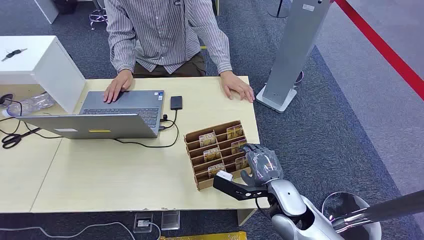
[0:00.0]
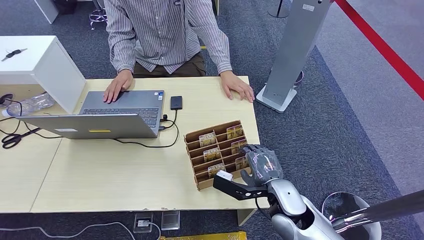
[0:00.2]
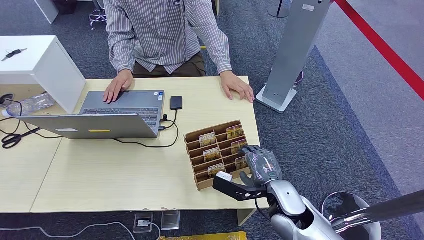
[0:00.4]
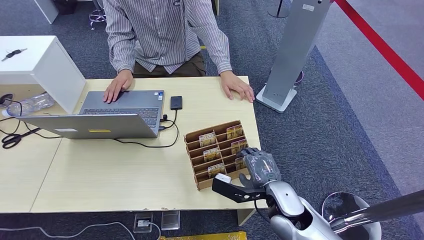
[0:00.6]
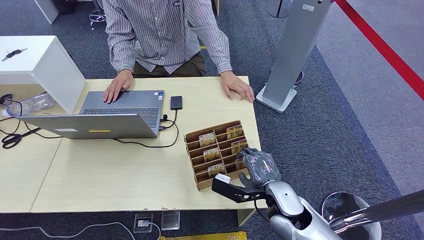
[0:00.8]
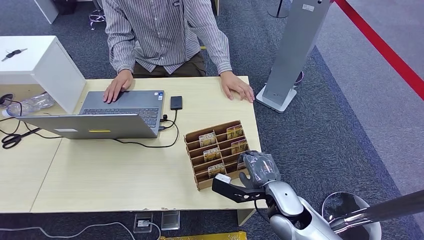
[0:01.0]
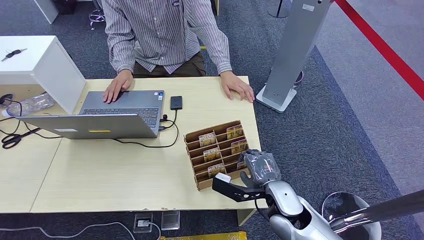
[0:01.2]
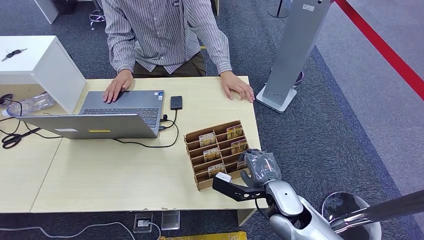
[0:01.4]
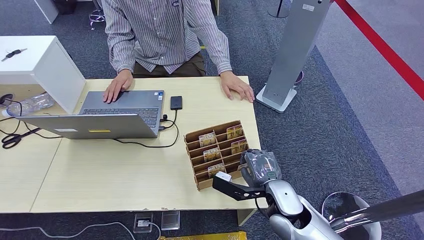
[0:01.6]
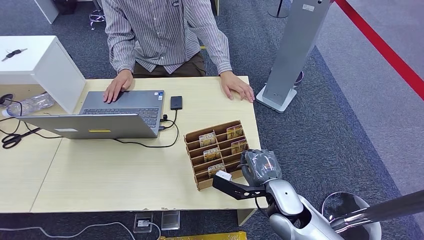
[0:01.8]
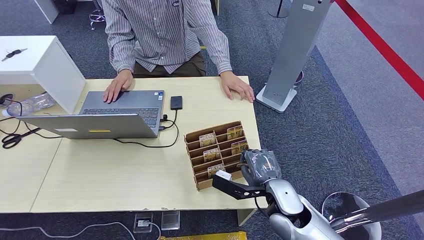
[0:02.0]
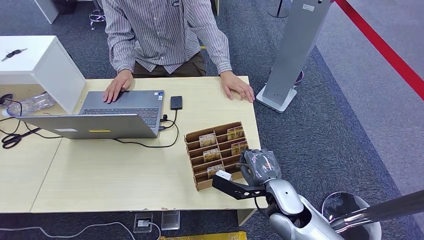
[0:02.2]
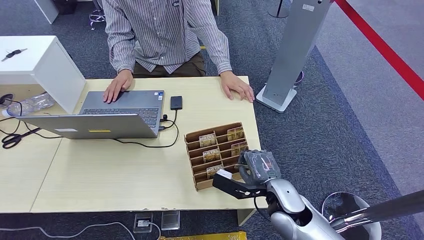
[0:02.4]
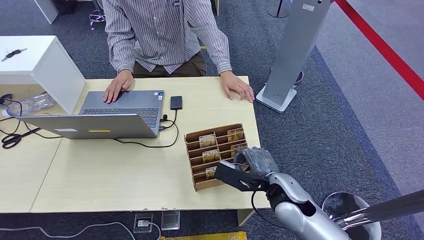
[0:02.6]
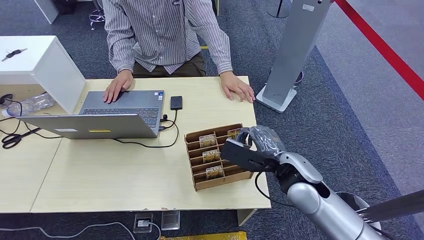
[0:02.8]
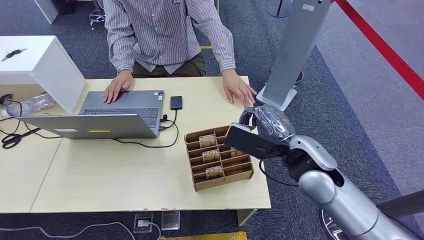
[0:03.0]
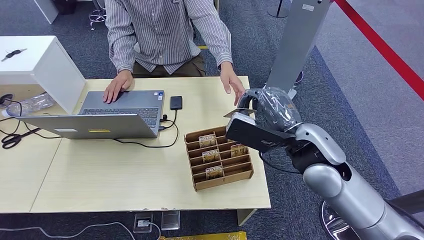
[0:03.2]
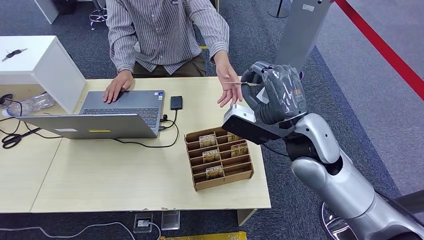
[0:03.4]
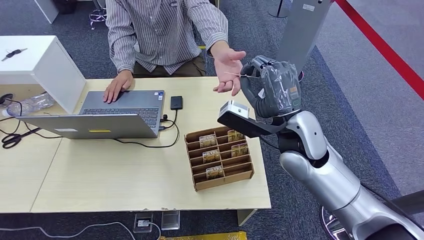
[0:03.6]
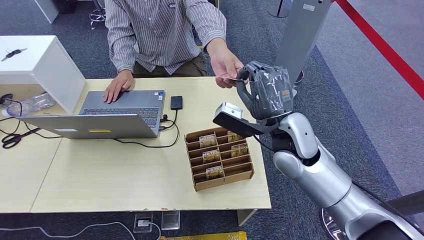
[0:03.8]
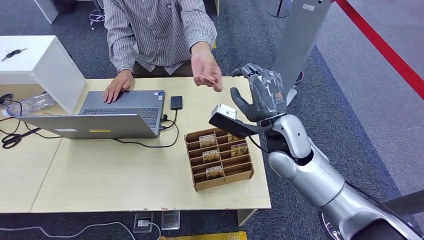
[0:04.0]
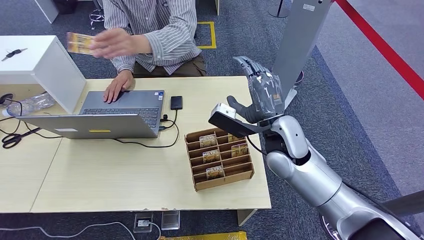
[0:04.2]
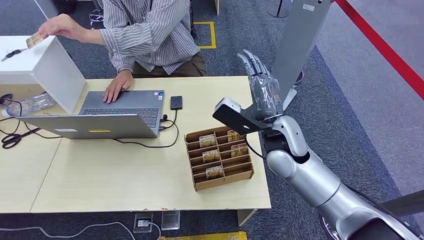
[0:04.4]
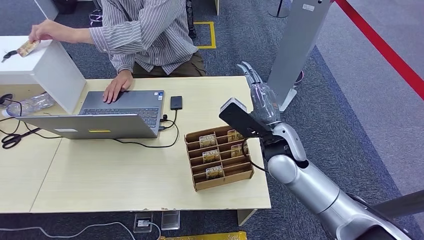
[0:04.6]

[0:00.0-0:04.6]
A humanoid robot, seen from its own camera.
Step, 0:00.0 to 0:02.6: Pick up the key card from the card box.
Step, 0:03.4 to 0:04.6: Hand the key card to the target.
0:01.6 to 0:03.0: The right hand travels upward and forward by roughly 15 cm.
0:03.0 to 0:04.6: The right hand moves approximately 5 cm.

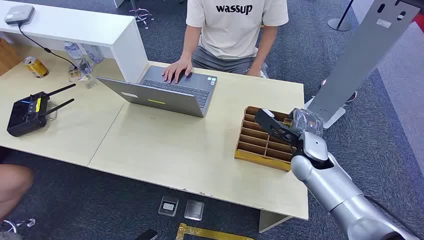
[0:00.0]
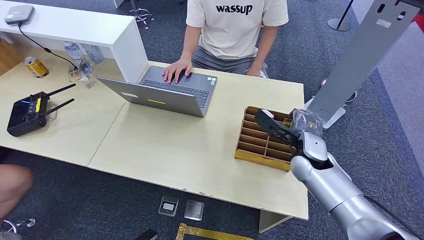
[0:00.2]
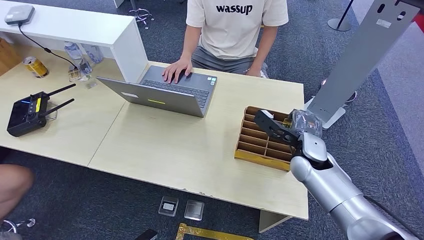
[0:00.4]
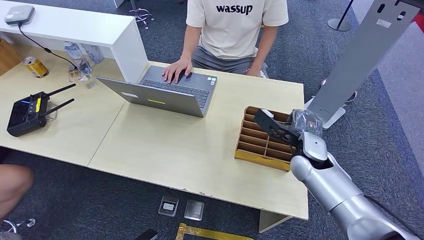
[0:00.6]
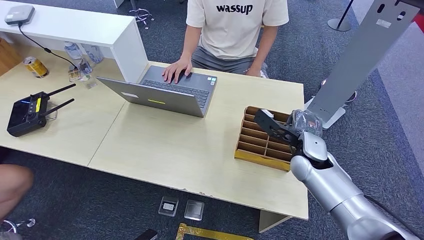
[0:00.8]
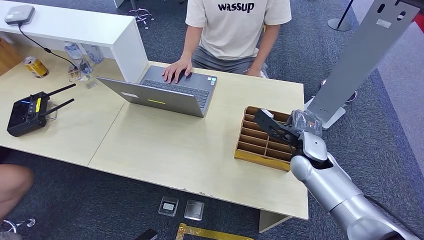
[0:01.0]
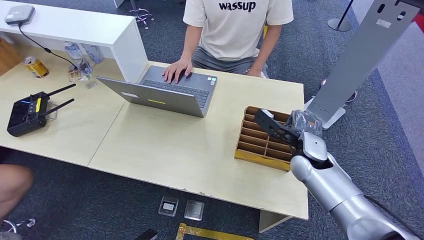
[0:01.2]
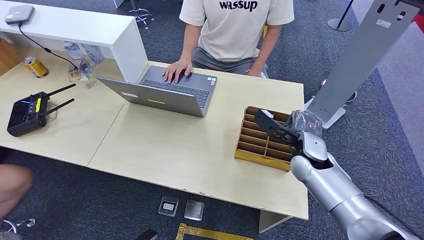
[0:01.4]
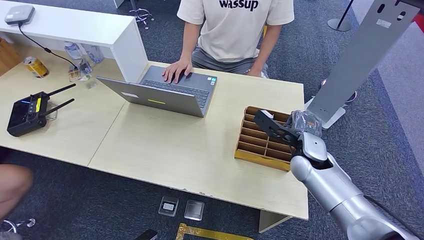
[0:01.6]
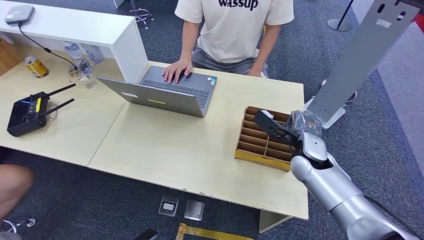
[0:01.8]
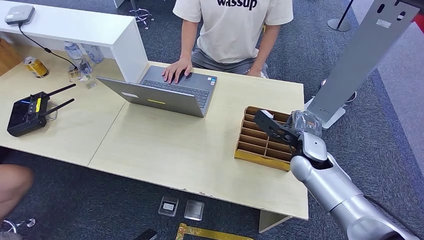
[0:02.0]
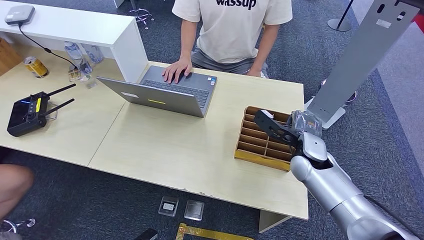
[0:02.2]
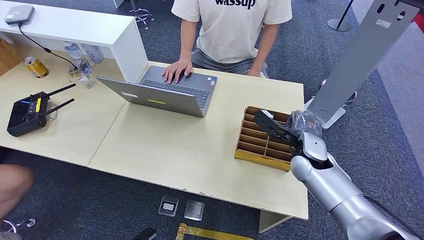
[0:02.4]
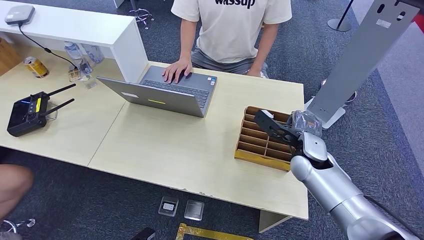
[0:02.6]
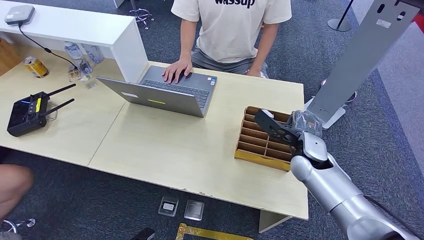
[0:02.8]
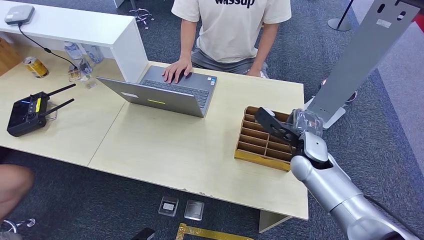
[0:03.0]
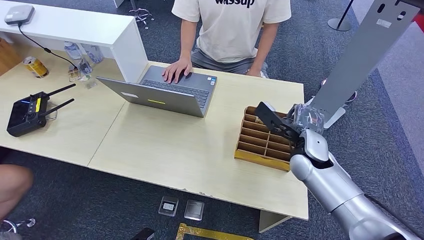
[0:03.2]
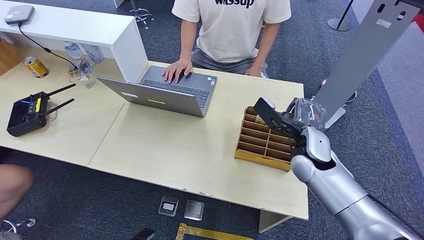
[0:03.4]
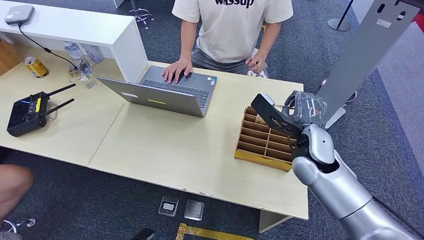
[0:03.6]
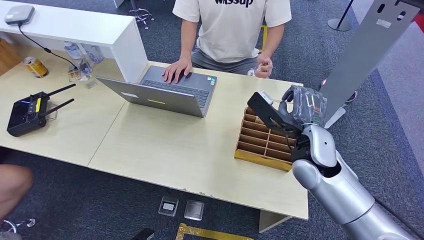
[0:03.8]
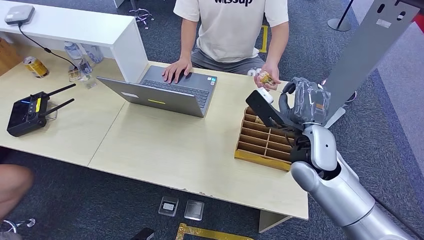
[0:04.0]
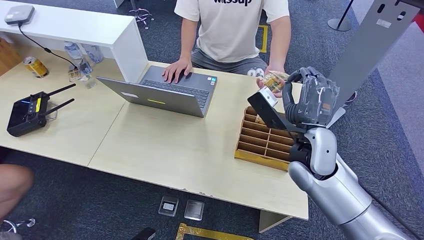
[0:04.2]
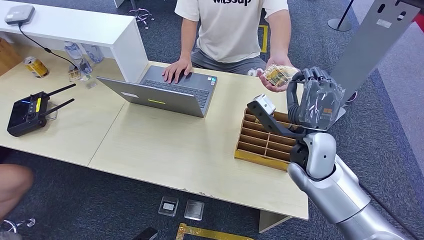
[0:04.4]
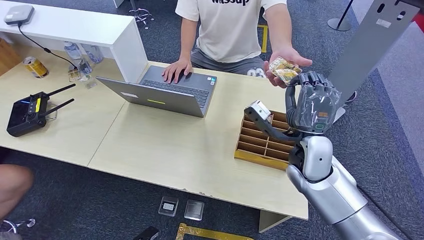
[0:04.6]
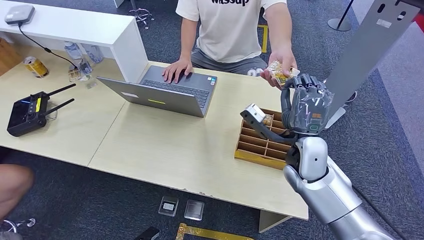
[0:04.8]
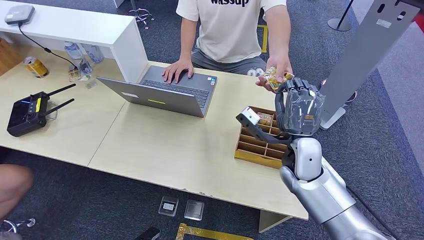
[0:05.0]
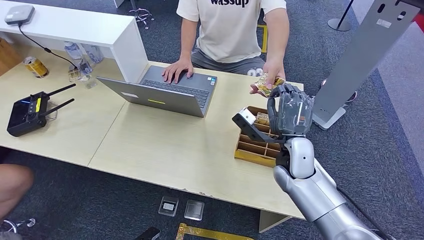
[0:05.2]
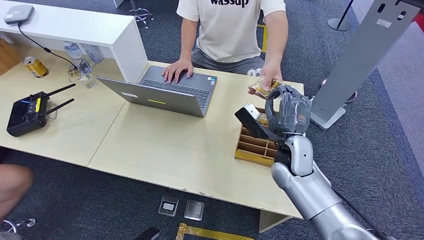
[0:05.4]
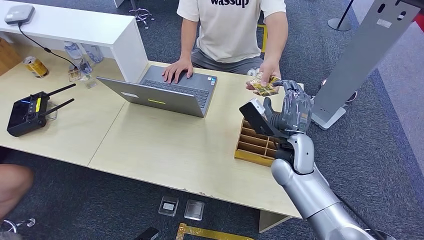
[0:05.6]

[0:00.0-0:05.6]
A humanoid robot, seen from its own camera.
Step, 0:00.0 to 0:03.6: Pick up the key card from the card box.
Step, 0:04.0 to 0:05.6: Hand the key card to the target.
0:01.4 to 0:02.8: The two hands keep their place.
0:02.8 to 0:04.2: The right hand shifts approximately 5 cm upward.
0:04.2 to 0:05.6: The right hand travels downward by some 5 cm.
